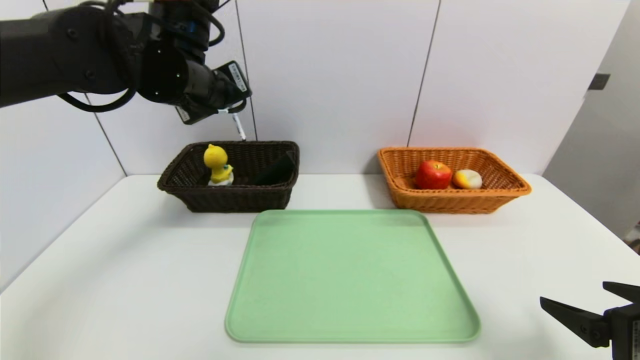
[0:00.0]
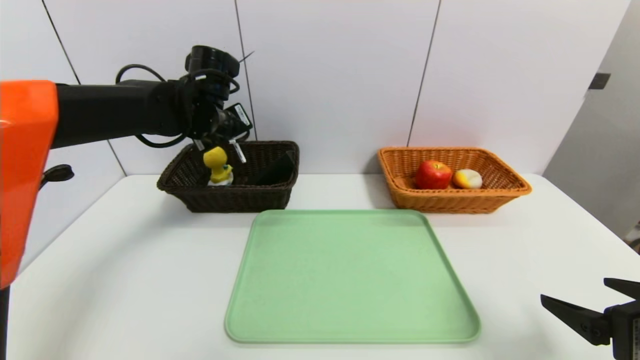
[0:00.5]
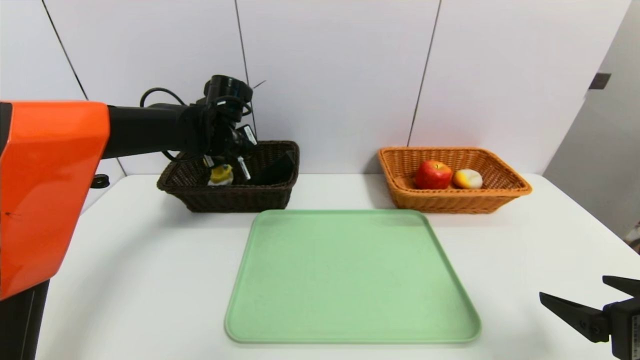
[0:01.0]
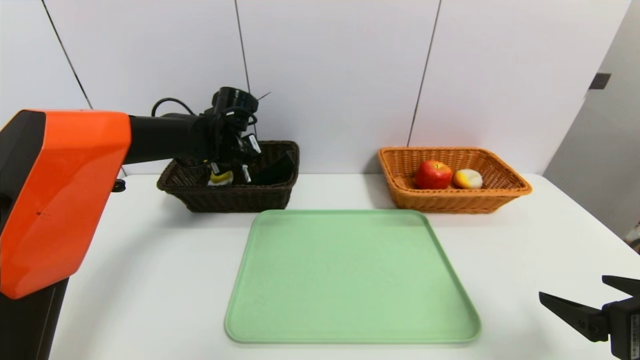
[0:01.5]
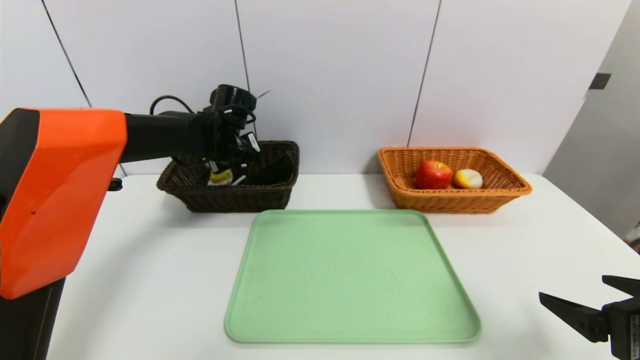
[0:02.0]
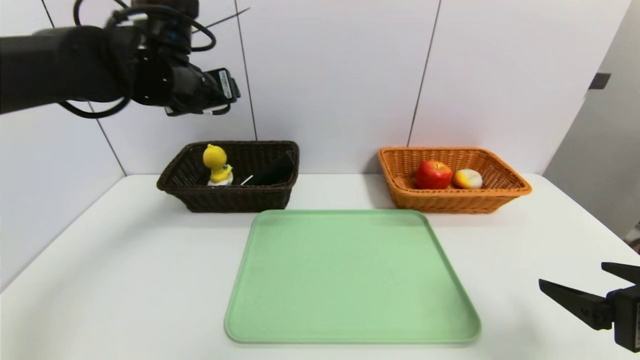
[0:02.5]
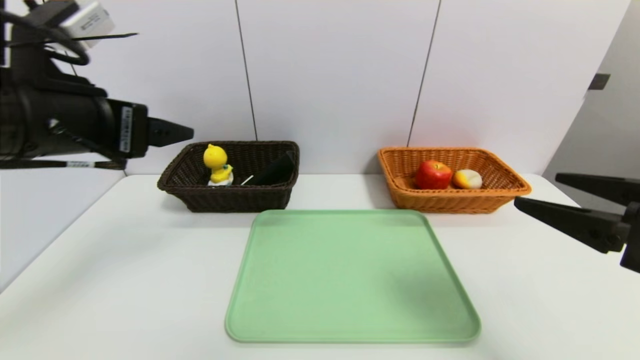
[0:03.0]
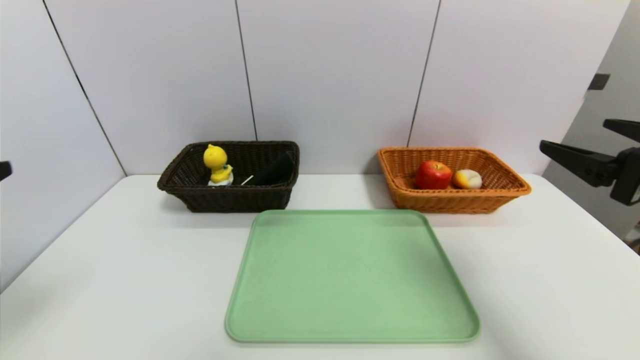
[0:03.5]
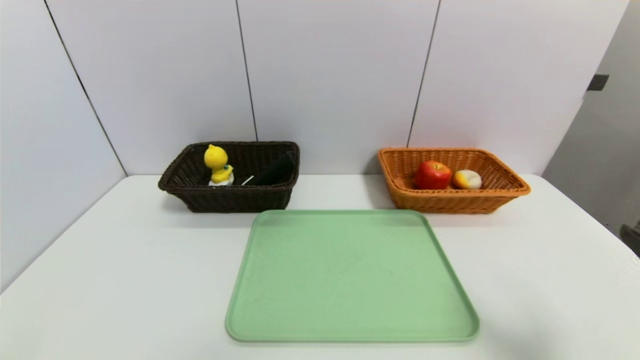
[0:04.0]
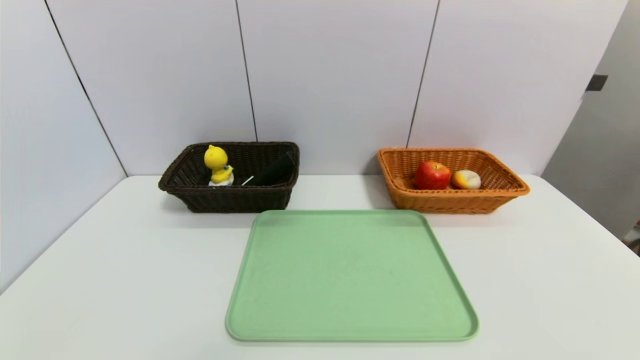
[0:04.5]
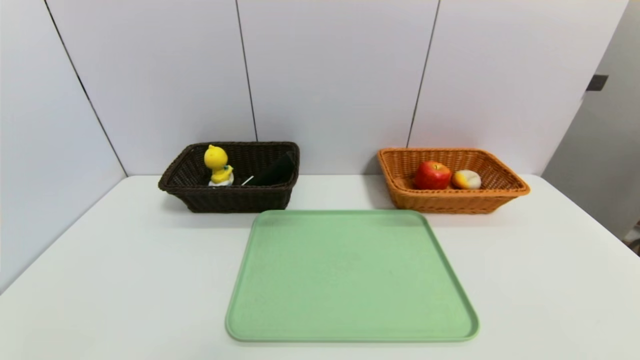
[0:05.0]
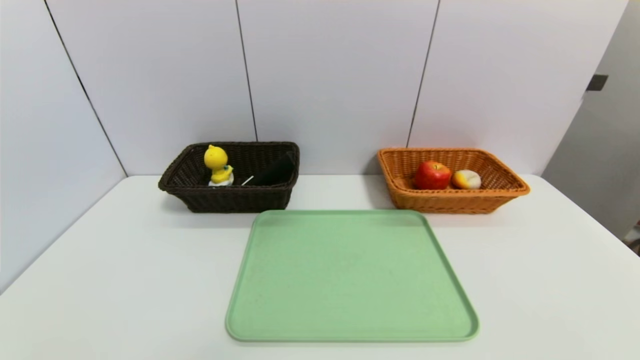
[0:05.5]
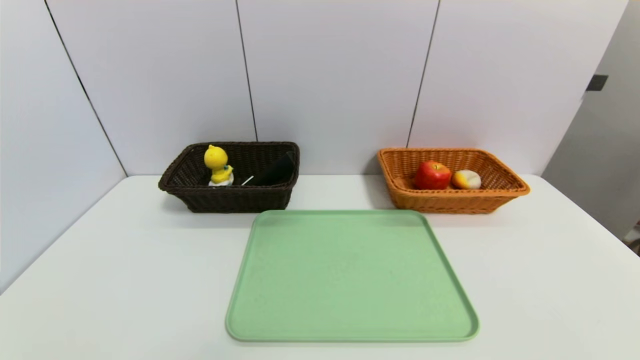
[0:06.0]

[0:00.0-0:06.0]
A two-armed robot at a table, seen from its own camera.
Task of the whole recording: place the food in the right basket with the right gripper, and place the non food items in the left basket with the left gripper.
Step, 0:00.0 to 0:02.0: Grasp the ballpoint pen and put it in the left basket.
0:00.0 to 0:02.0: The left gripper is displaced downward and forward by approximately 15 cm, and opens its fingers.
0:02.0 to 0:04.0: The left gripper heads backward, covering some 50 cm, and opens.
0:04.0 to 0:06.0: The right gripper heads downward and backward, covering approximately 15 cm.

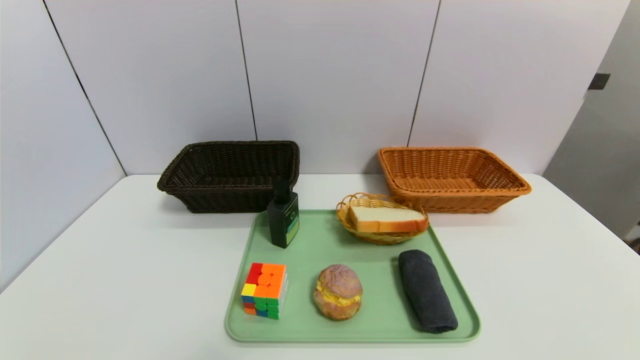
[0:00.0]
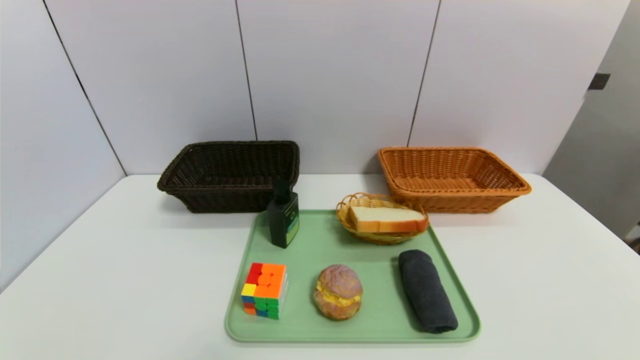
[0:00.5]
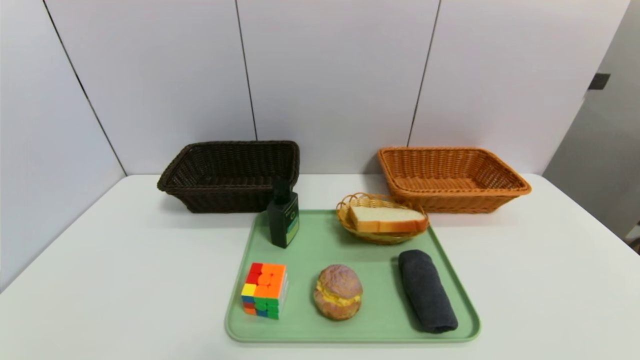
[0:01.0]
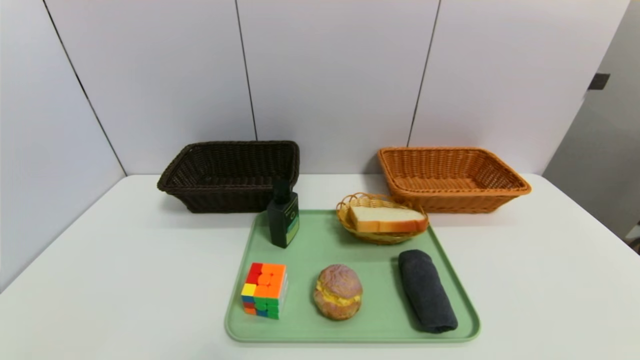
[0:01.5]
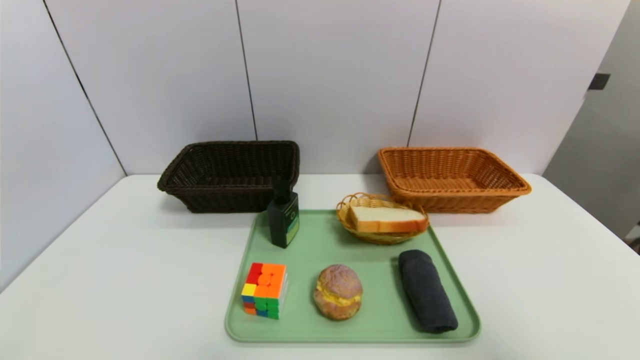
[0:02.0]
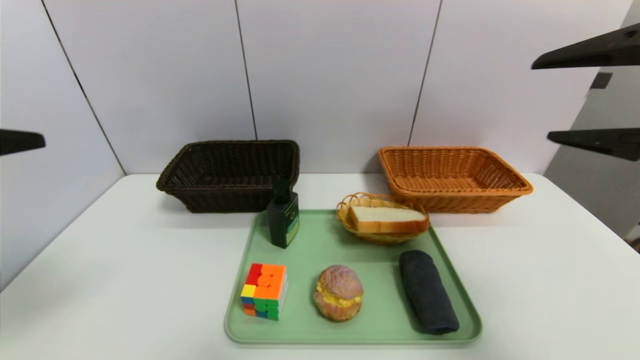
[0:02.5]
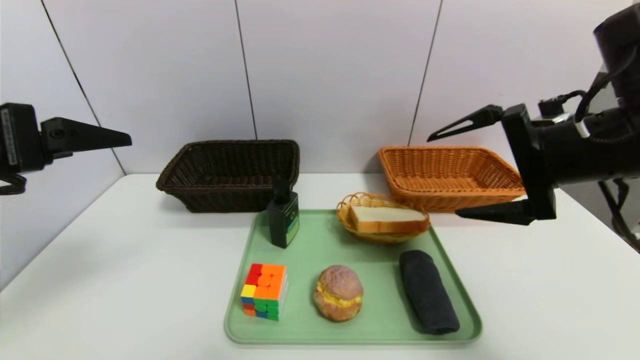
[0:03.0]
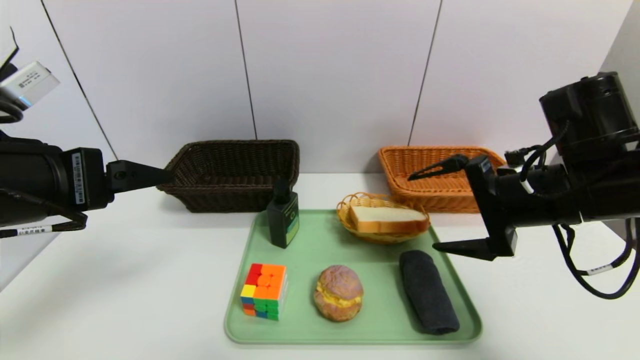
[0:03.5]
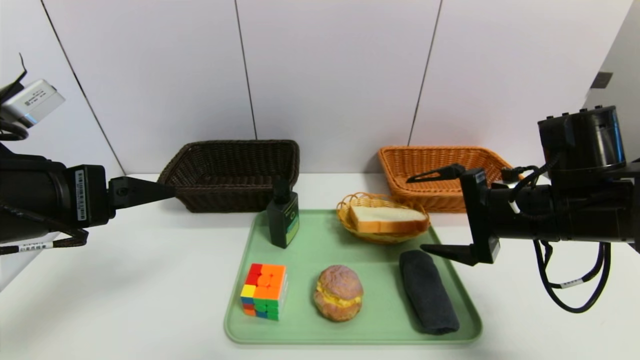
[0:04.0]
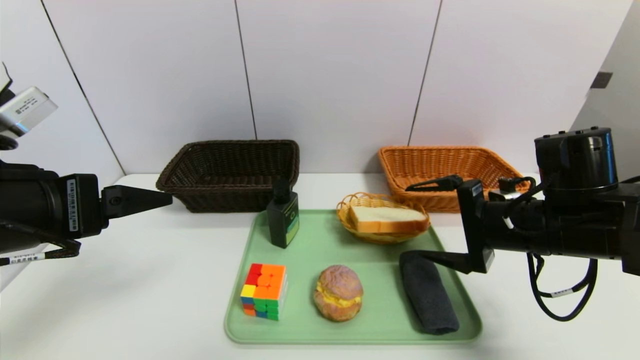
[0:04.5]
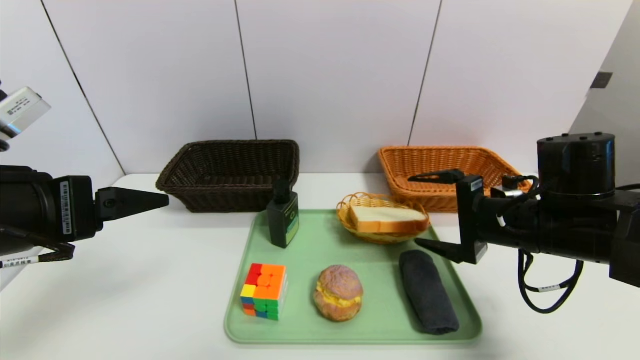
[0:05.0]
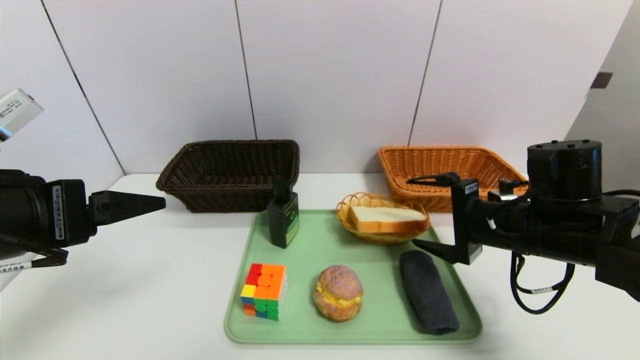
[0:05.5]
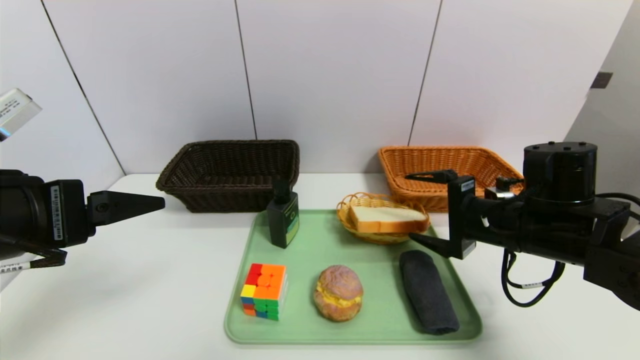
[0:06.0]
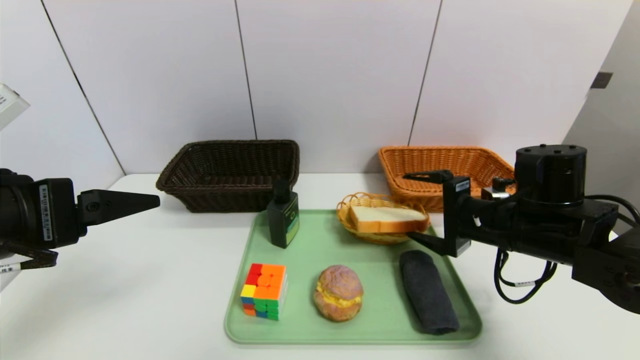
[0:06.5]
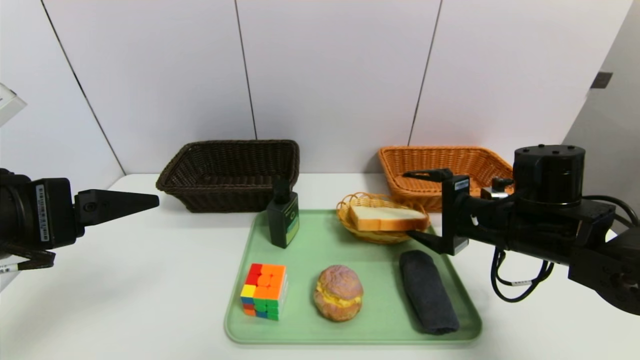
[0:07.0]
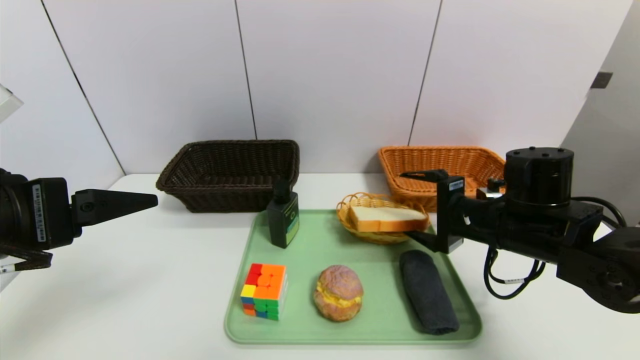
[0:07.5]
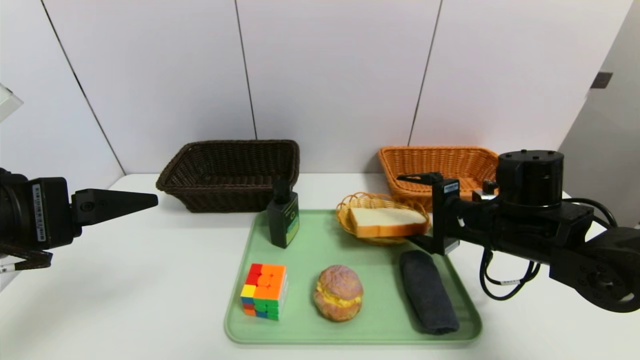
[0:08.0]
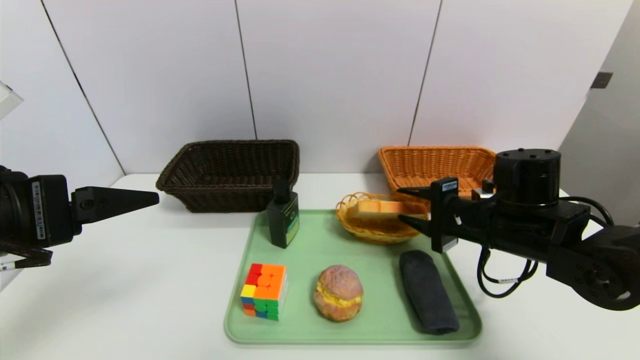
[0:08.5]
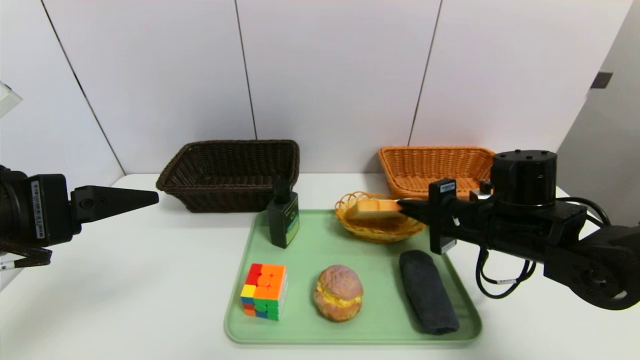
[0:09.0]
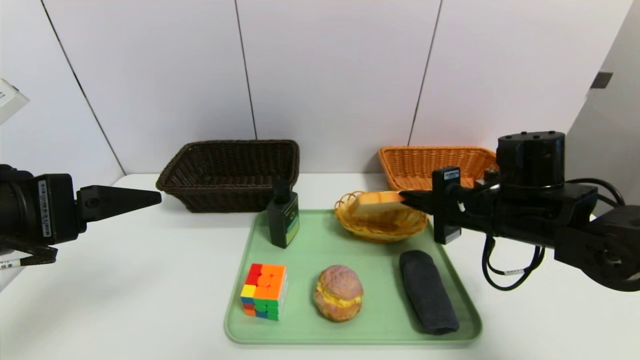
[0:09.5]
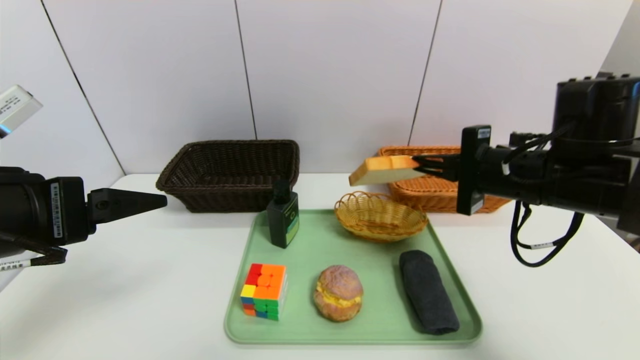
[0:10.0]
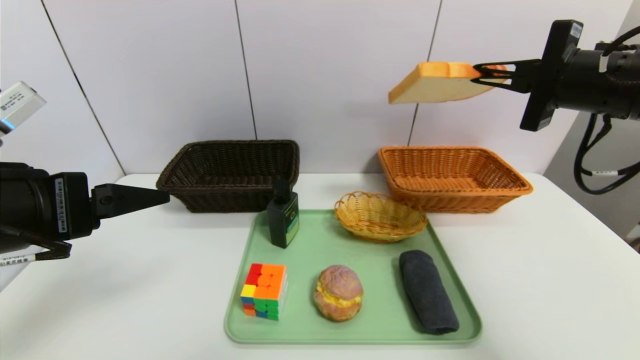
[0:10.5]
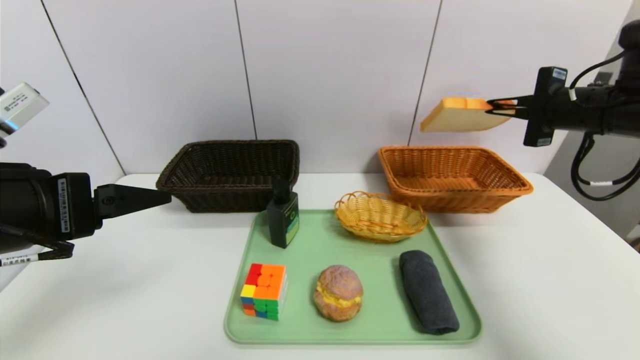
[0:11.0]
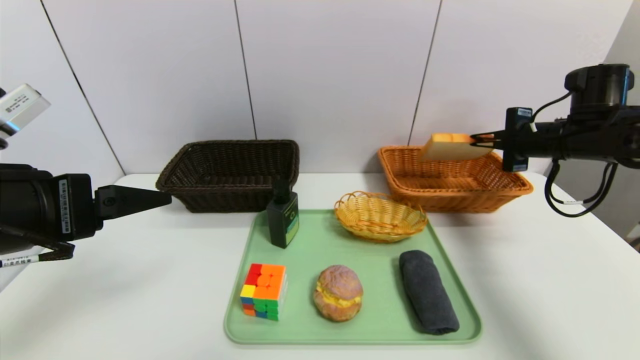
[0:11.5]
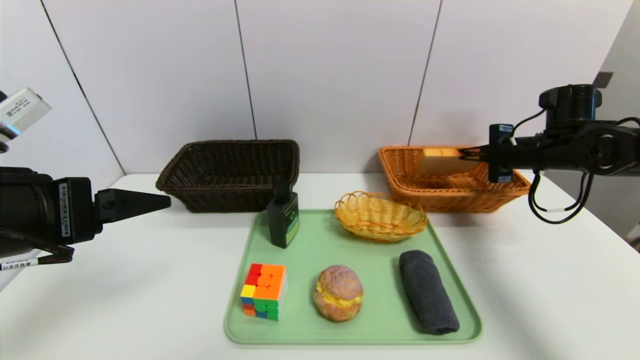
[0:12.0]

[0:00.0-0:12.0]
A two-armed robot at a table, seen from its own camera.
Task of the whole recording: place the food in the right basket with the right gripper, and place the non food items in the left basket with the left gripper.
0:00.0 to 0:02.0: The right gripper is displaced upward by some 25 cm.
0:02.0 to 0:04.0: The right gripper is displaced forward, downward and to the left by about 25 cm, while the left gripper is displaced forward by about 20 cm.
0:04.0 to 0:06.0: The grippers make only small movements.
0:06.0 to 0:08.0: The grippers stay close to where they were, moving slightly.
0:08.0 to 0:10.0: The right gripper goes about 10 cm upward, and closes up.
0:10.0 to 0:12.0: The right gripper heads forward and to the right, covering about 20 cm.

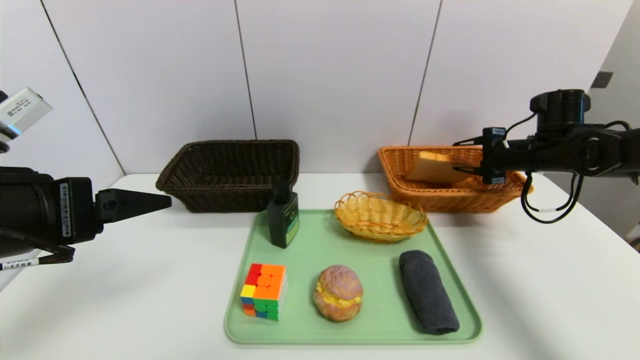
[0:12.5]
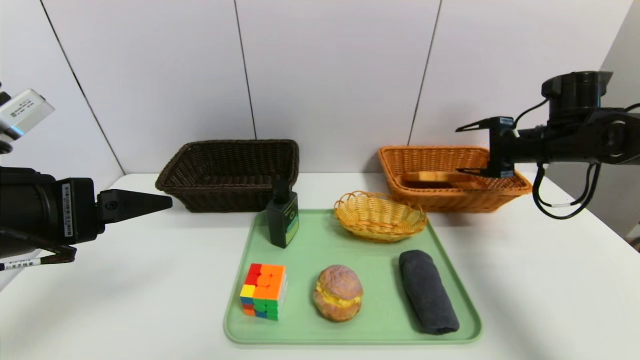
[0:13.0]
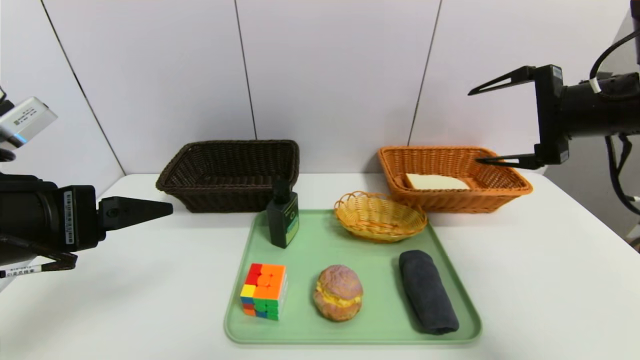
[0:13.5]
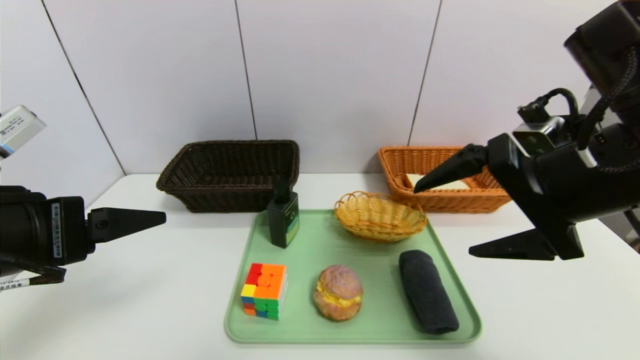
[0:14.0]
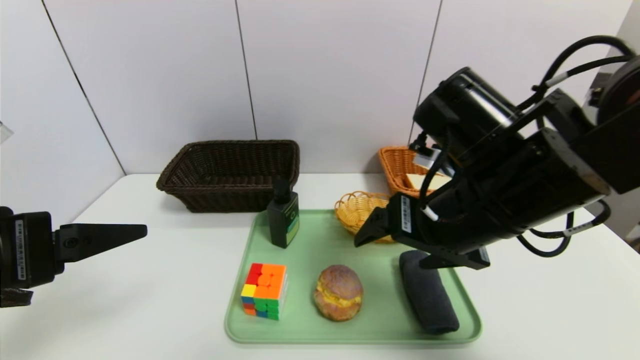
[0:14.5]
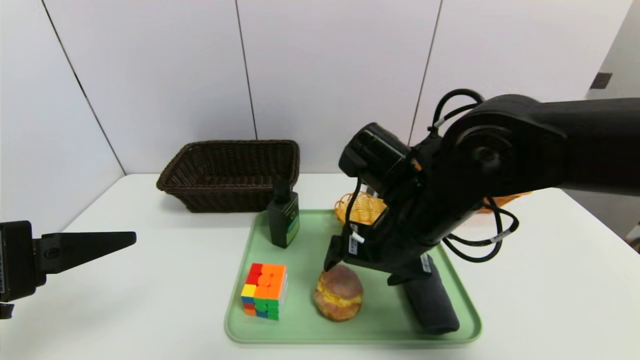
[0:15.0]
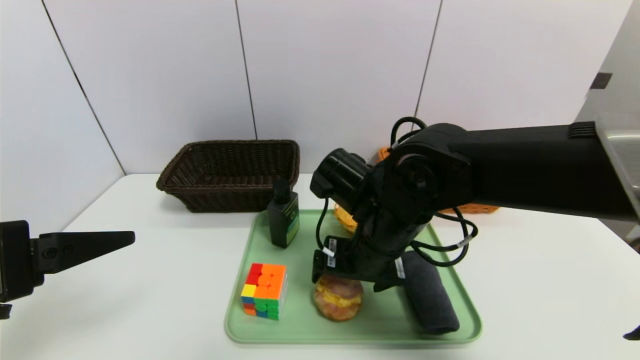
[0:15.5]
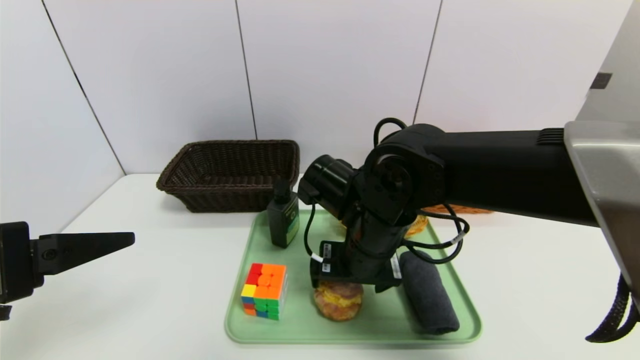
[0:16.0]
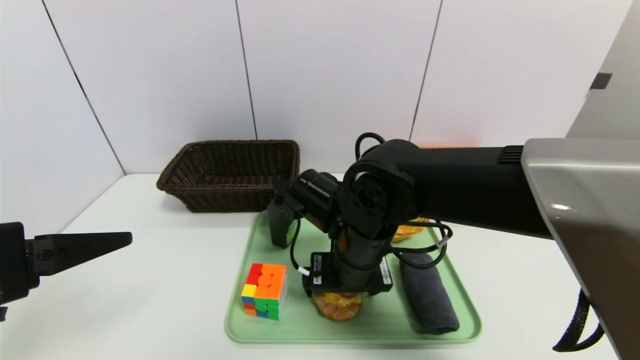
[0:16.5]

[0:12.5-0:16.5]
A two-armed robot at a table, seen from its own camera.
Task of the whole recording: place the food in the right basket with the right gripper, and place the non food items in the left basket with the left gripper.
0:12.5 to 0:14.5: The right gripper moves to the left and backward, about 30 cm, and opens up.
0:14.5 to 0:16.5: The right gripper goes approximately 15 cm to the left and downward.
